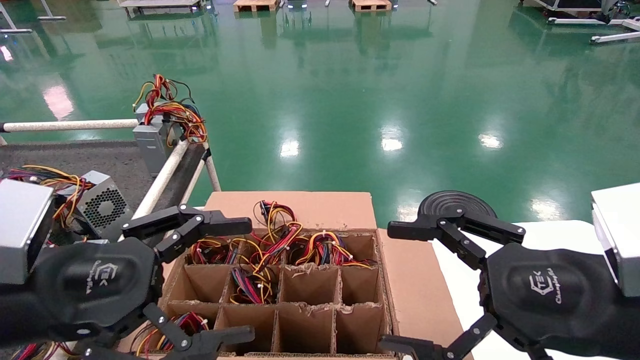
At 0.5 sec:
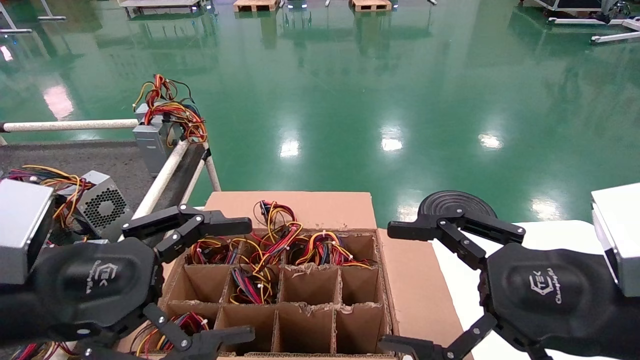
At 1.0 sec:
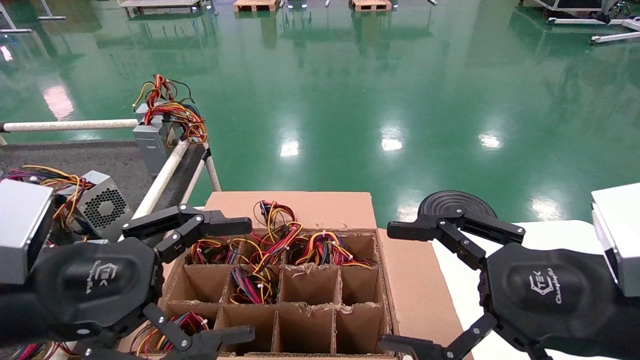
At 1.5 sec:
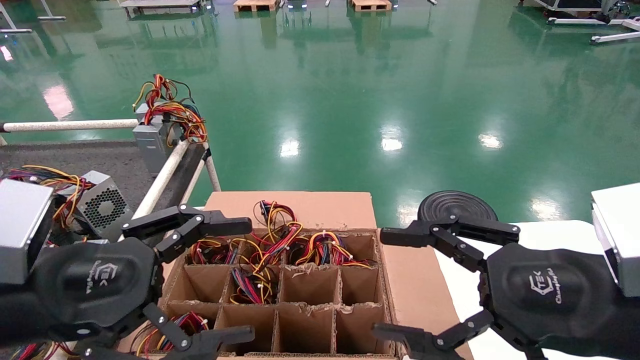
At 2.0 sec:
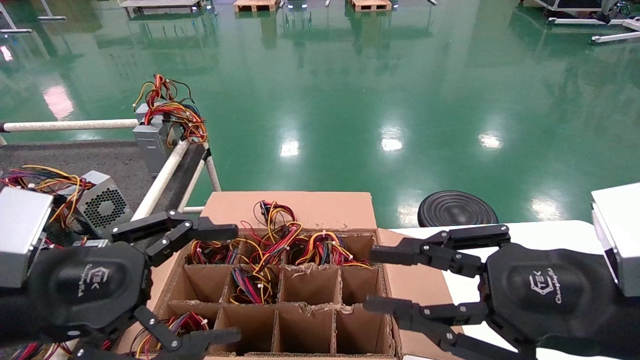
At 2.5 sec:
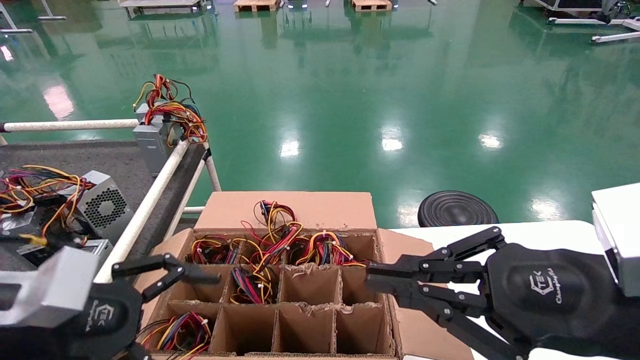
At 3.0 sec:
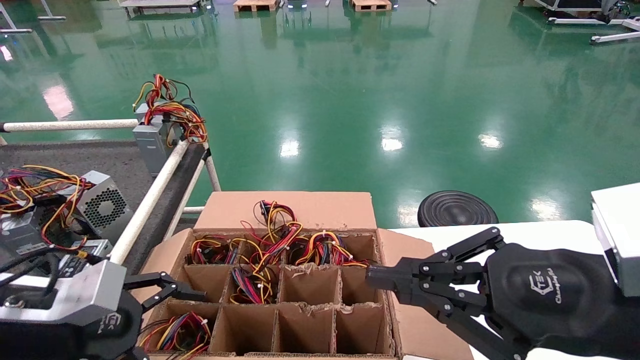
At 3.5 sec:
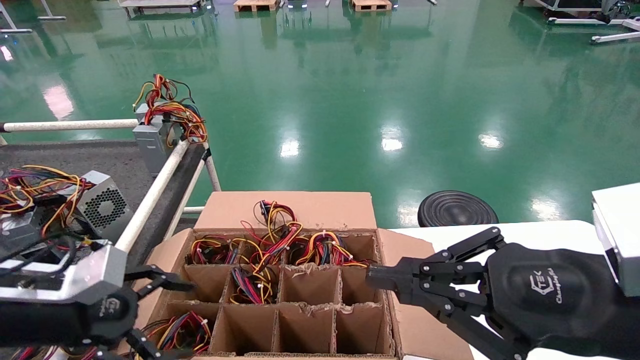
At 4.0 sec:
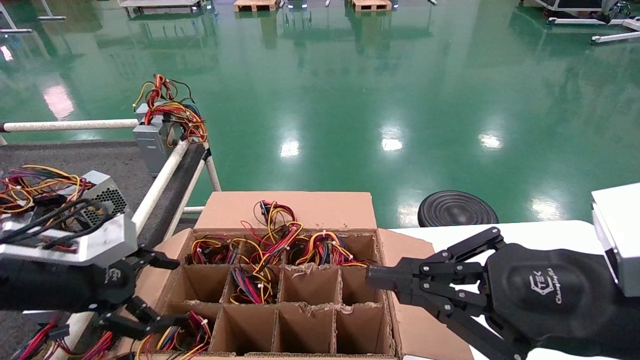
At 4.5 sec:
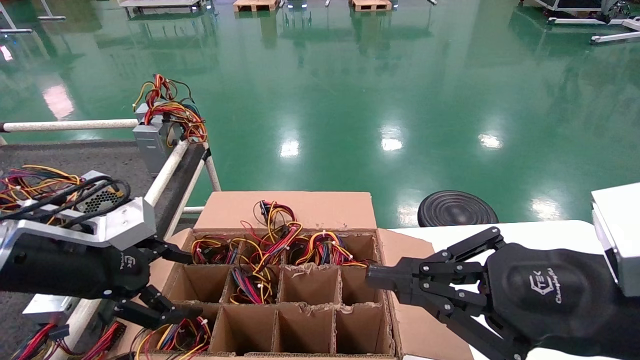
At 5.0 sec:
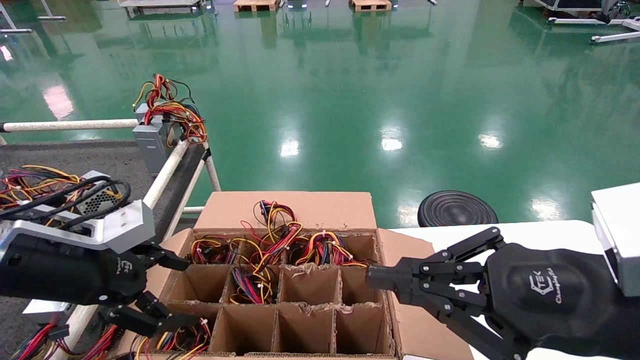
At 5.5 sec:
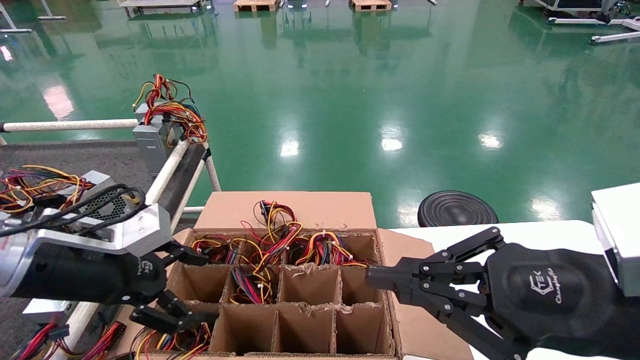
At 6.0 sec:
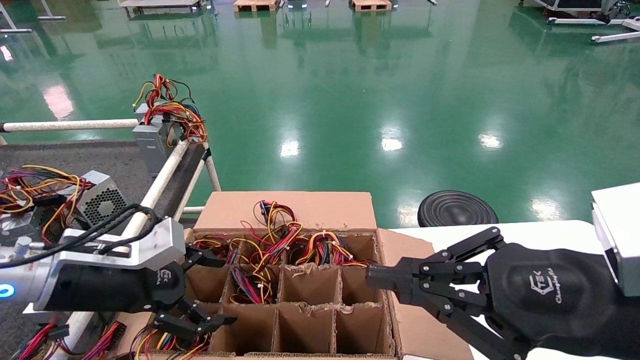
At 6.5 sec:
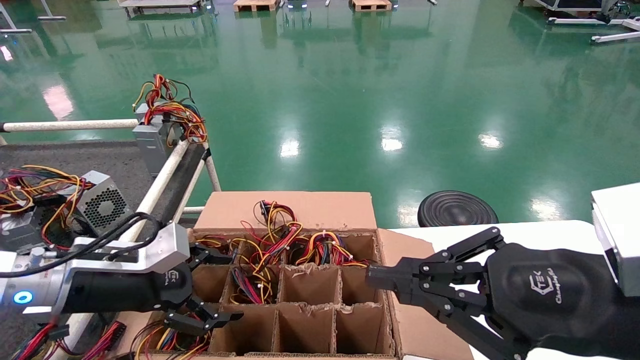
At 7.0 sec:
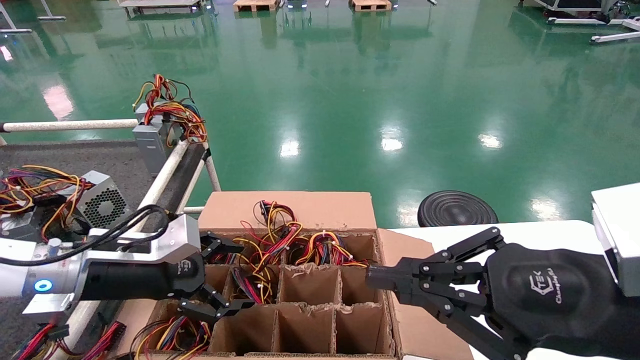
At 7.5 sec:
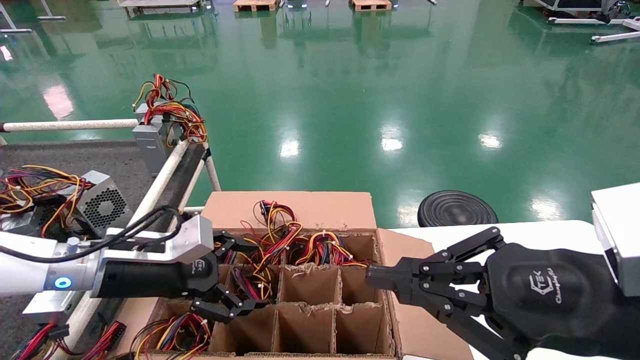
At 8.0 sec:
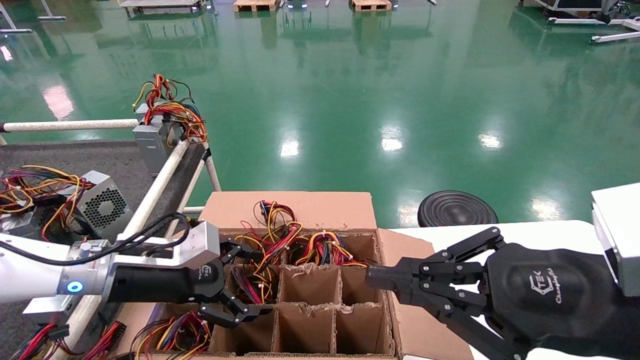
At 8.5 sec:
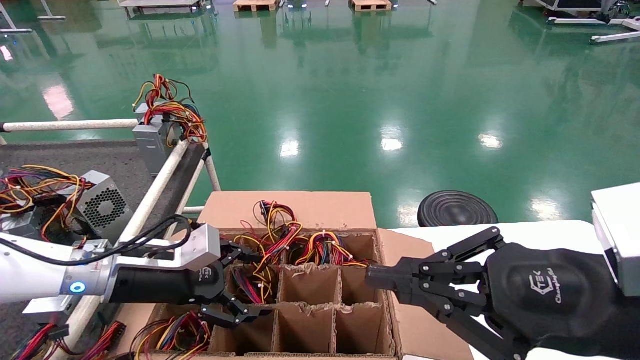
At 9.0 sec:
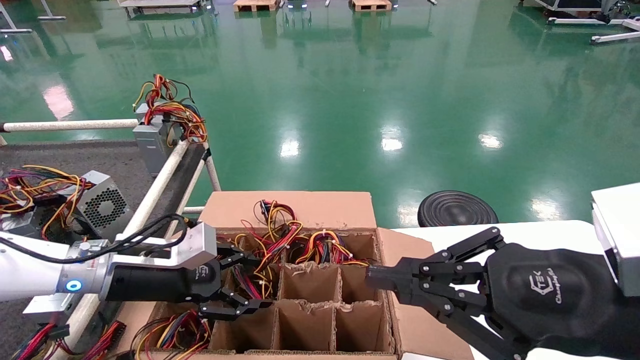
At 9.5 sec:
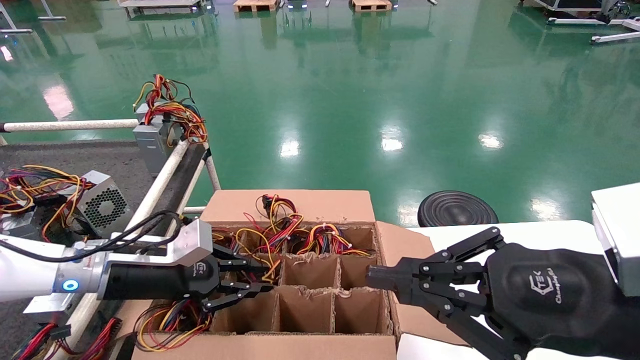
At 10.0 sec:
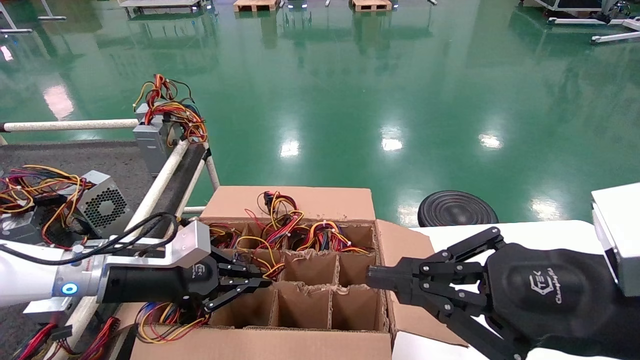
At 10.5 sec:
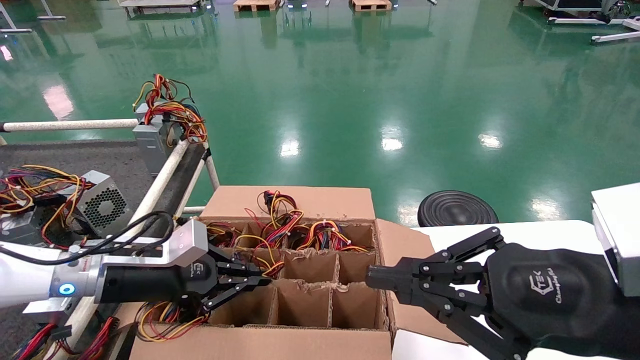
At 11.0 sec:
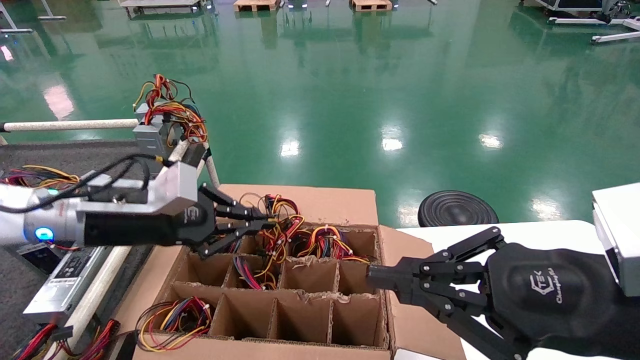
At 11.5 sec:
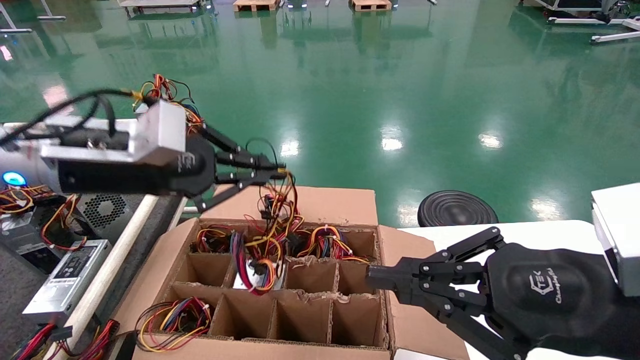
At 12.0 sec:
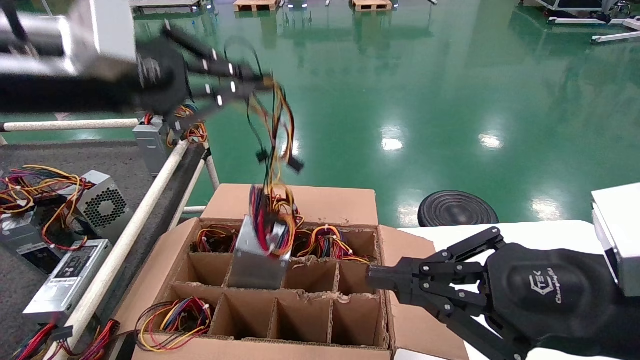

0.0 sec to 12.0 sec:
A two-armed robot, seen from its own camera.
Step, 2.5 sec to 10.0 sec: Grab and lift the power supply from the large box.
0.0 sec to 2.0 sec: The right gripper closes up.
2.0 sec to 4.0 sec: The right gripper closes its fingers, while the left gripper shifts roughly 10 cm forward and to the left.
4.0 sec to 6.0 sec: The left gripper moves about 5 cm.
6.0 sec to 8.0 sec: The left gripper is displaced forward by roughly 5 cm.
8.0 sec to 10.0 sec: The left gripper closes its fingers.
10.0 sec to 12.0 sec: The left gripper travels upward by approximately 25 cm.

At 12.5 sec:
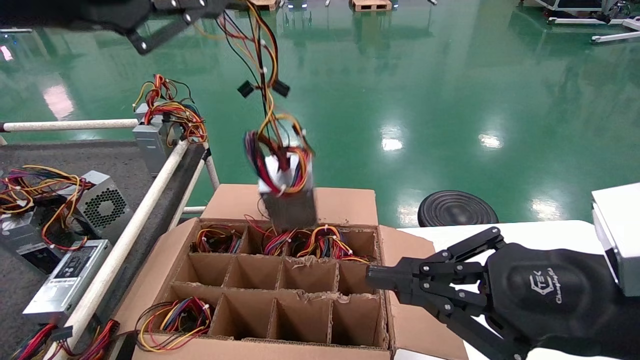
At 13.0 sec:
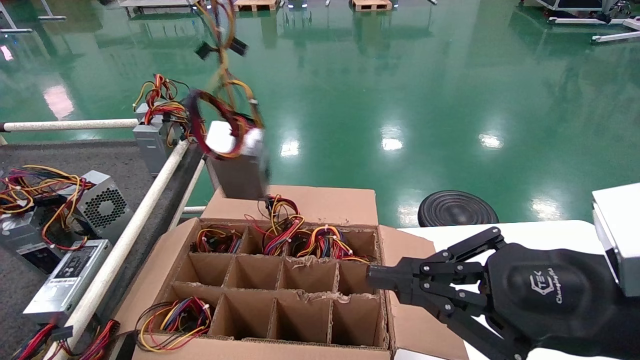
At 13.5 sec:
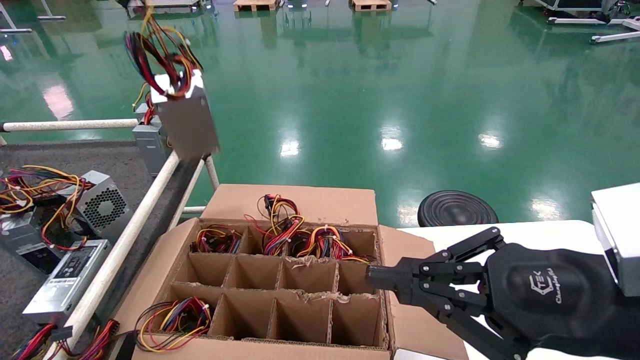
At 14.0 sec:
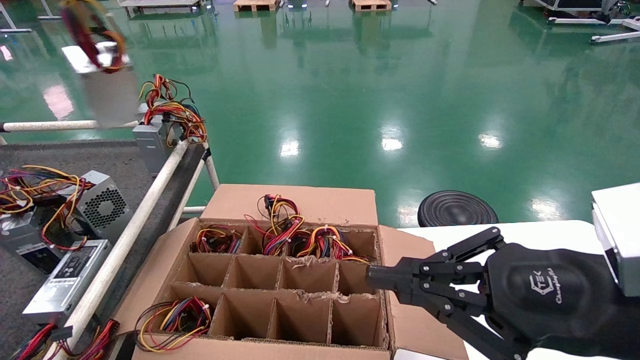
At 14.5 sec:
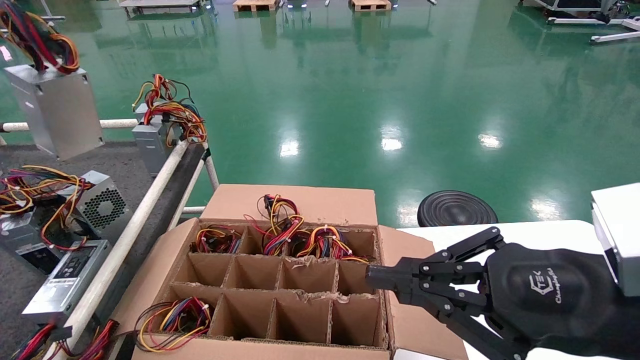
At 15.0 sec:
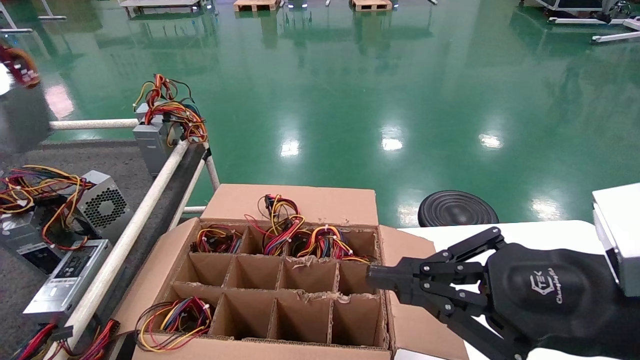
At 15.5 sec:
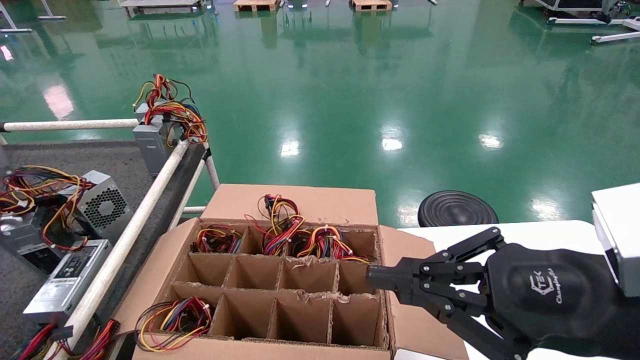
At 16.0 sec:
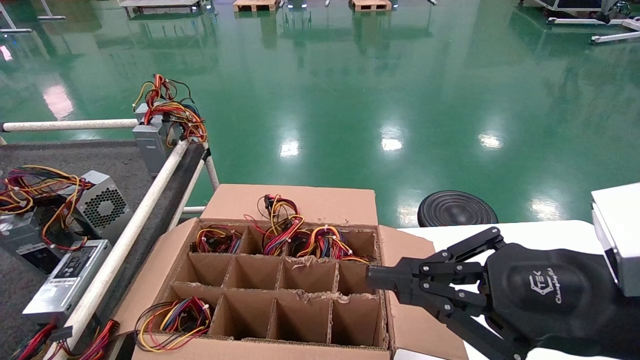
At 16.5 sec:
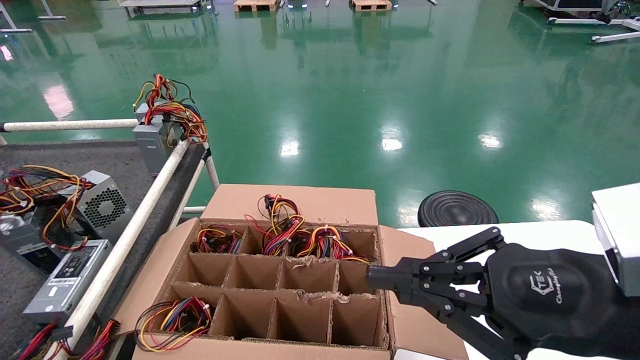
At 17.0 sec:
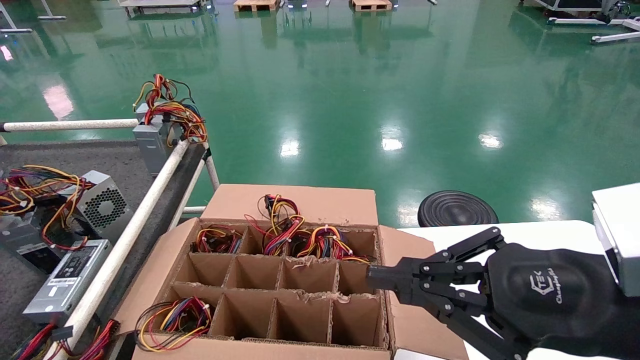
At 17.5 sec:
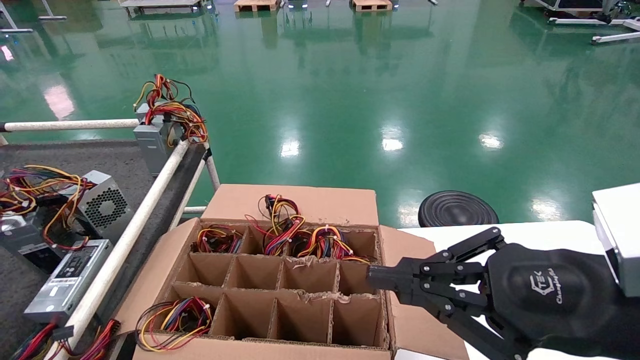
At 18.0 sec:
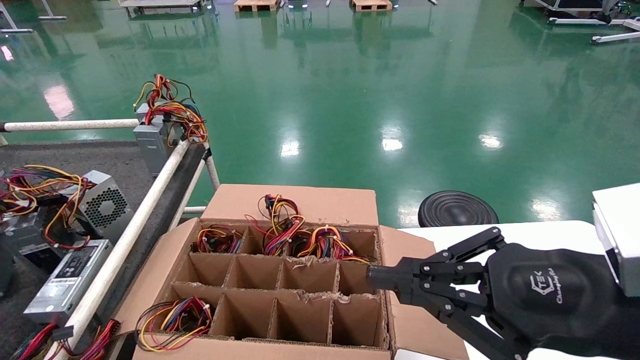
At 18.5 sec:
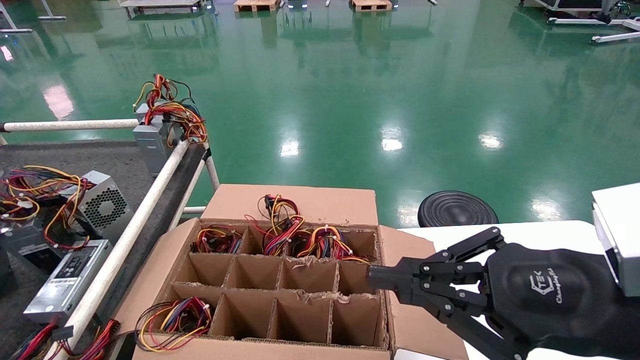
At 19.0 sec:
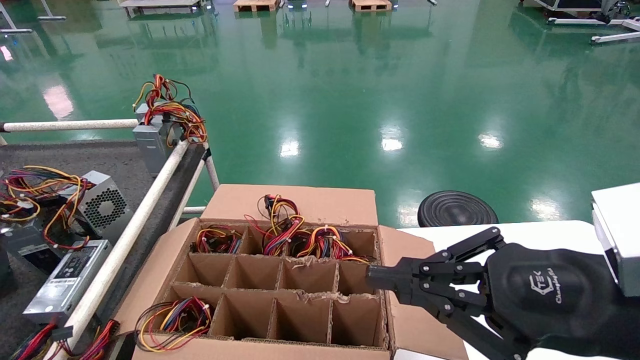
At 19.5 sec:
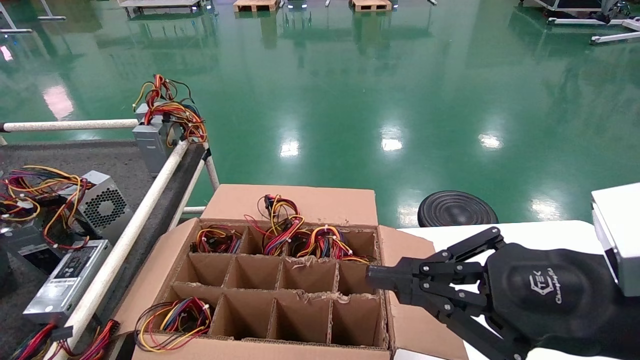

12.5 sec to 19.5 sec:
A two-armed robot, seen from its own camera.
Step, 12.5 sec to 19.5 sec: Place the power supply on the operating table.
12.5 sec to 14.5 sec: The left gripper heads to the left and upward, covering about 25 cm.
14.5 sec to 16.0 sec: The left gripper moves to the left and backward, some 15 cm.
16.0 sec to 17.5 sec: The left gripper is displaced downward by about 10 cm.
17.5 sec to 19.5 sec: The left gripper moves downward, about 5 cm.
